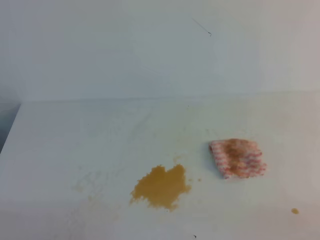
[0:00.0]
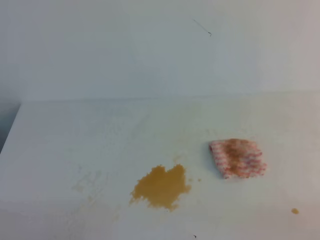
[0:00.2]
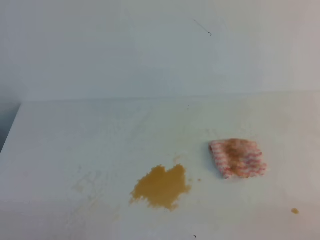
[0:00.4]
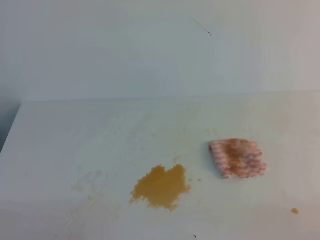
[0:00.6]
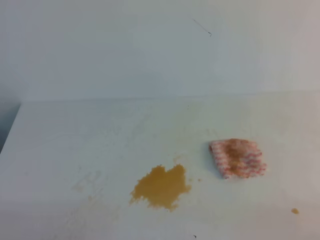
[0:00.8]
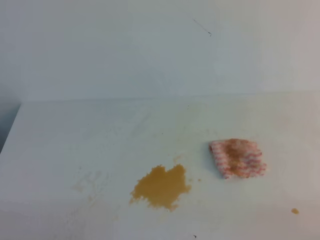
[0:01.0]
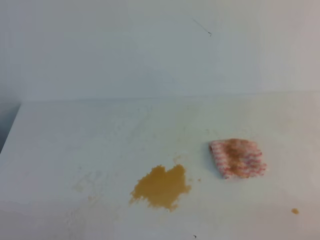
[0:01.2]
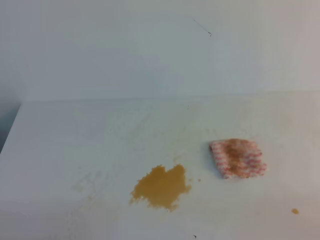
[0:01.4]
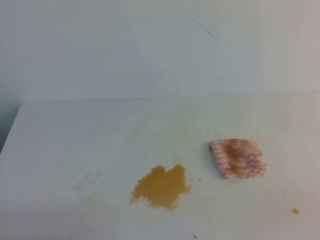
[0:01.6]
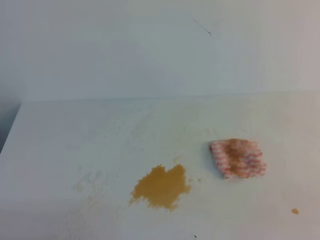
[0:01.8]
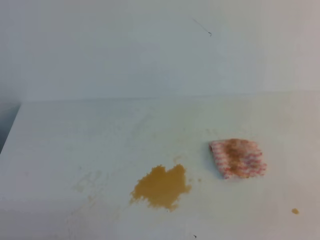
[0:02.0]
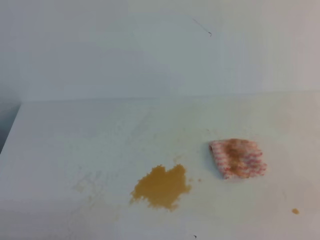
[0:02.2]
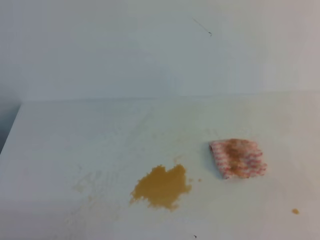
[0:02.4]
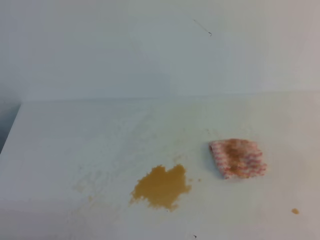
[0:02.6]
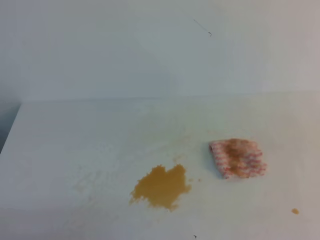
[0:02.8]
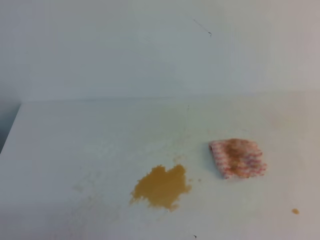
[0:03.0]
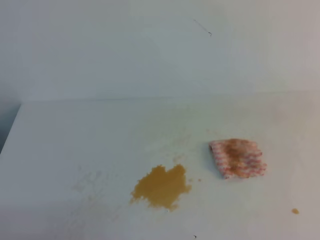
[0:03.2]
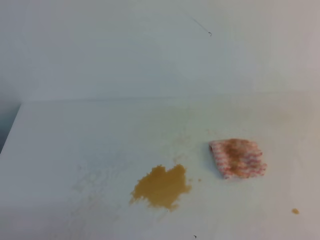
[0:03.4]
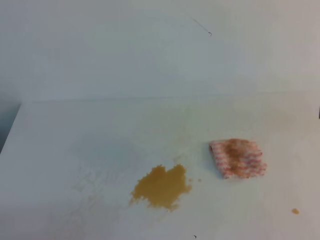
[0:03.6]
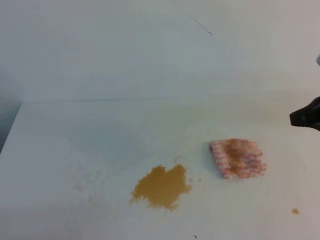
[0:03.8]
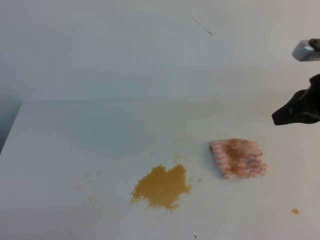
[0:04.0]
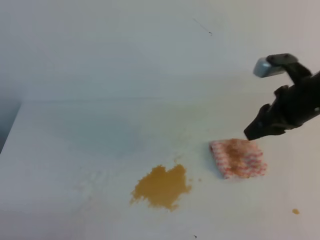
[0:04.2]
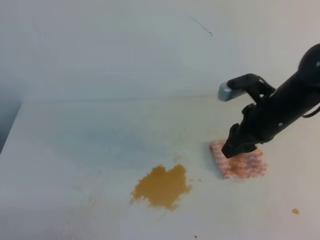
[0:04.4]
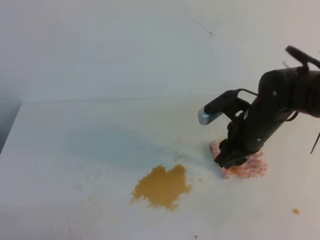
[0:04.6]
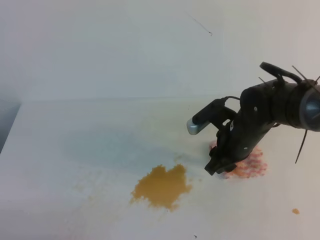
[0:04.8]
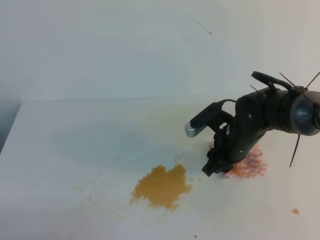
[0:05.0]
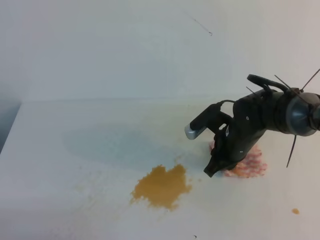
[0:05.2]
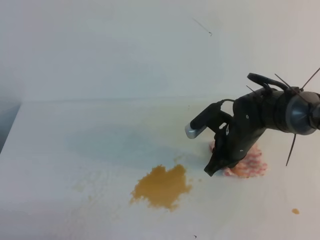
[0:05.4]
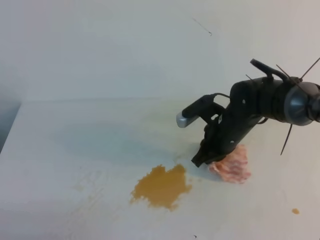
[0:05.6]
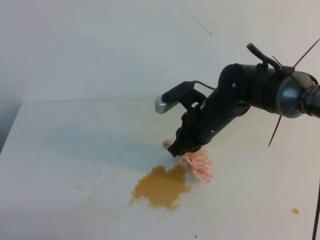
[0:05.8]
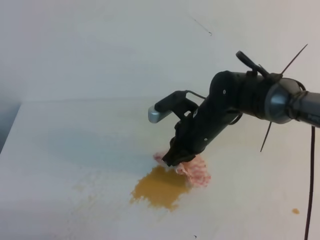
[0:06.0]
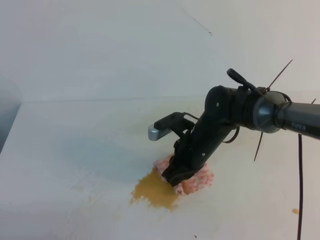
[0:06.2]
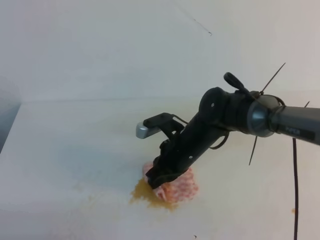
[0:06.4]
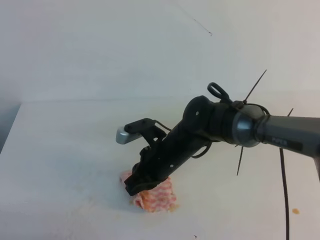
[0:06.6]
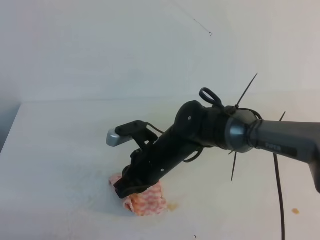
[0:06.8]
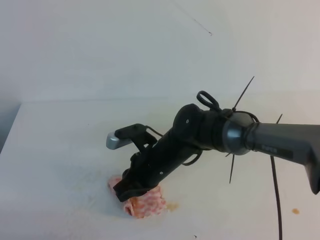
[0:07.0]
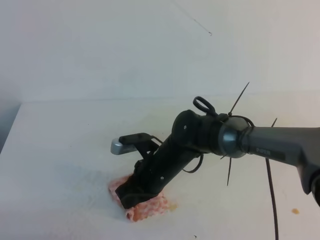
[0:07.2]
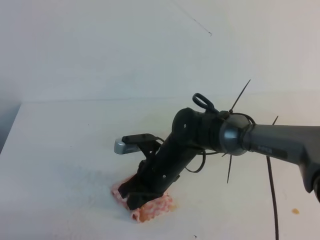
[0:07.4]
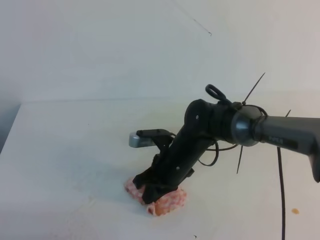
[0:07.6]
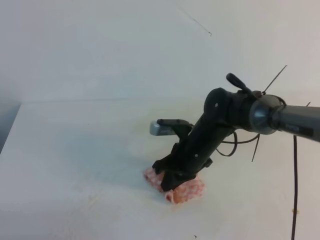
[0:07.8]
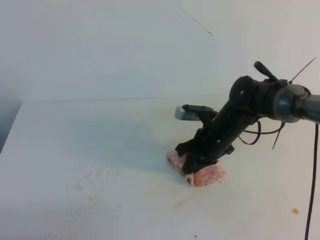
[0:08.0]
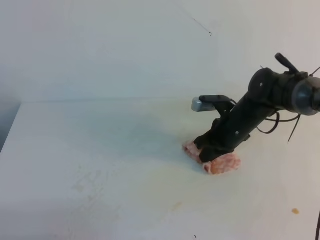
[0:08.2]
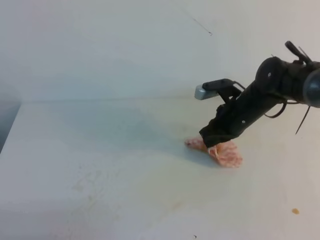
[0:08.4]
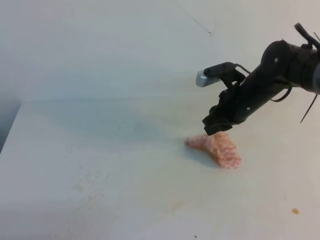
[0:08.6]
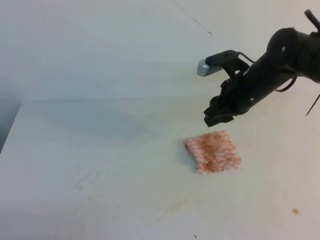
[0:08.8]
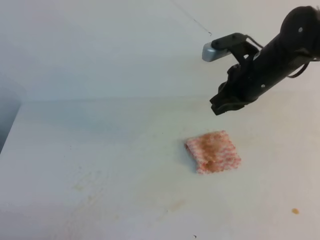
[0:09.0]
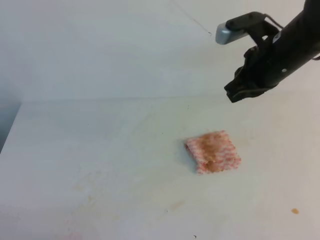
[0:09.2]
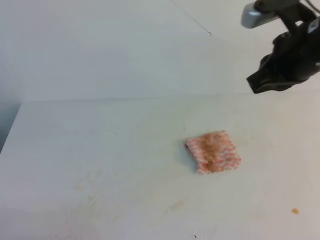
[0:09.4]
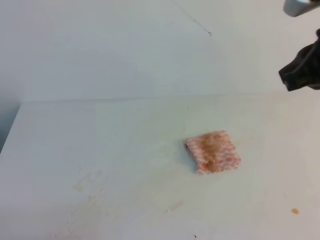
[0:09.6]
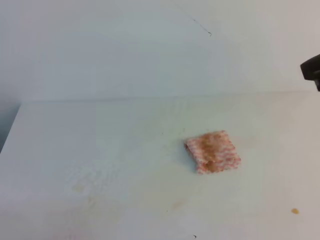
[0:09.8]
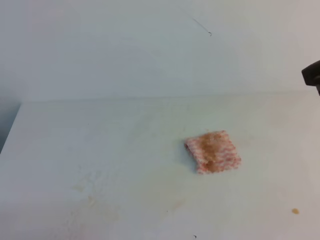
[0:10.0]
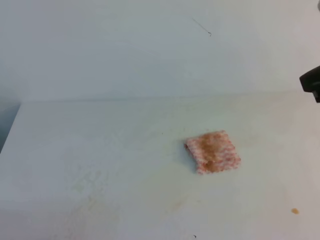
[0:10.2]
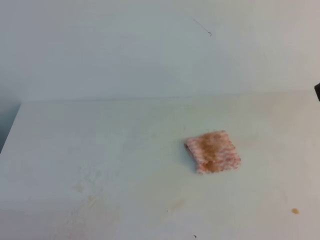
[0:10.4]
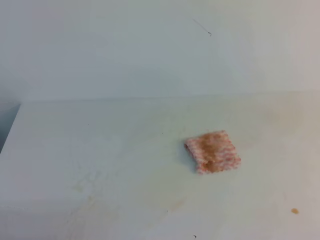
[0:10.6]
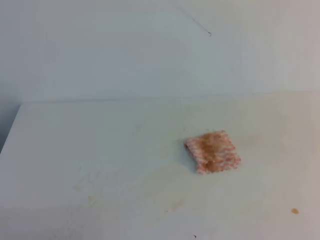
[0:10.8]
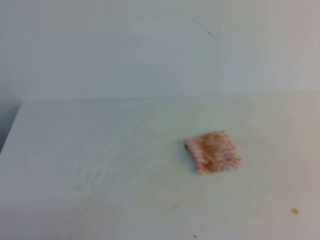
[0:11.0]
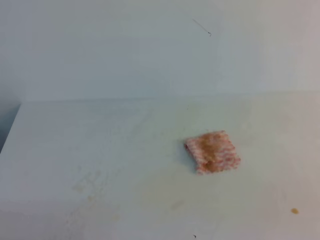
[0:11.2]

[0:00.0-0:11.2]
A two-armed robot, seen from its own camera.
0:03.2 to 0:04.8: The right gripper travels forward, to the left and downward by some 30 cm, and opens its fingers.
0:04.8 to 0:06.4: The right gripper moves to the left, approximately 10 cm, and closes its fingers.
0:06.4 to 0:08.0: The right gripper is displaced to the right by some 5 cm.
0:08.0 to 0:09.6: The right gripper travels upward, to the right and backward by some 30 cm, and opens, then closes once more.
0:09.6 to 0:11.2: The right gripper goes roughly 30 cm backward and to the right.

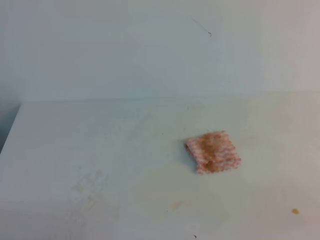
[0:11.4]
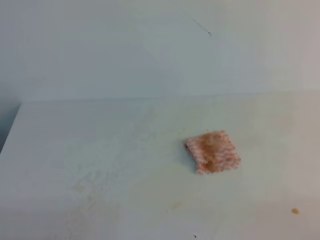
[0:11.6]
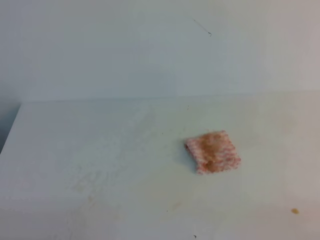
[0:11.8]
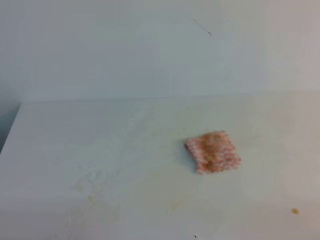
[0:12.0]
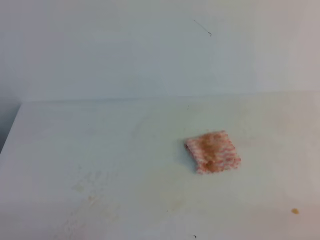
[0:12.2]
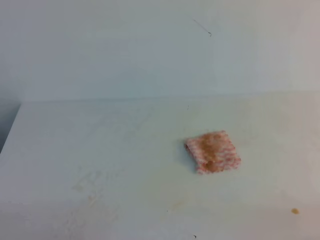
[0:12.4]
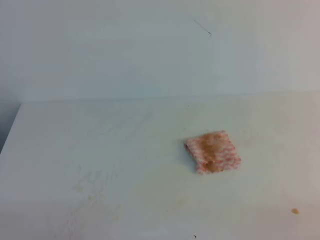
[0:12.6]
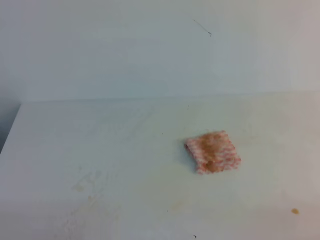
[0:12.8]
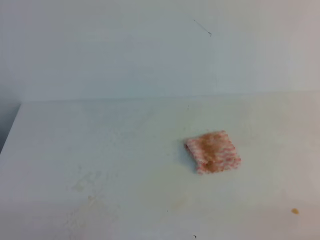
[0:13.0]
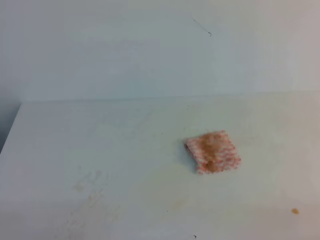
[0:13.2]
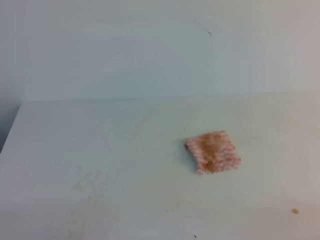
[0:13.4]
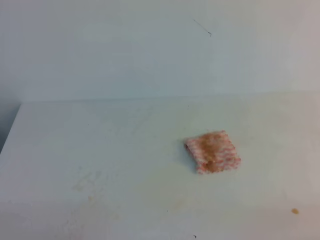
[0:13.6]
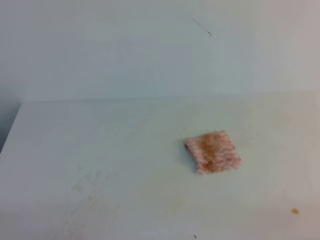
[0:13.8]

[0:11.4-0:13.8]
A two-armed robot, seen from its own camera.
0:12.6 to 0:13.8: Both grippers stay put.
